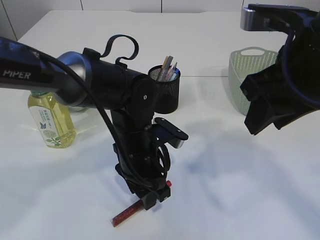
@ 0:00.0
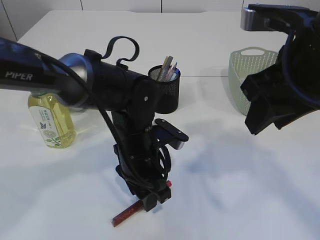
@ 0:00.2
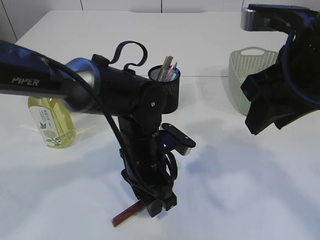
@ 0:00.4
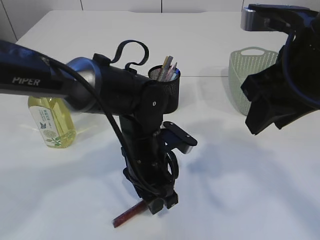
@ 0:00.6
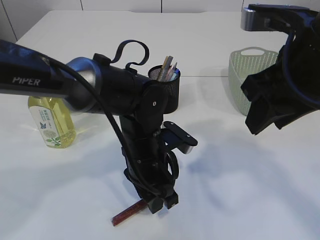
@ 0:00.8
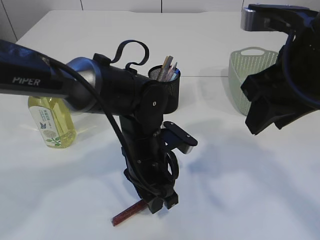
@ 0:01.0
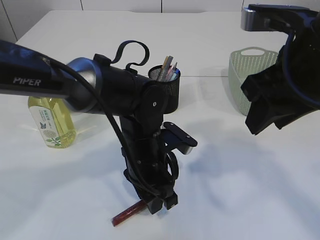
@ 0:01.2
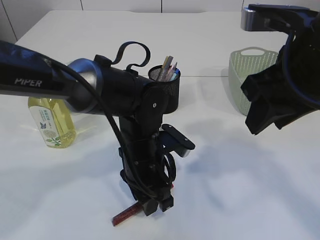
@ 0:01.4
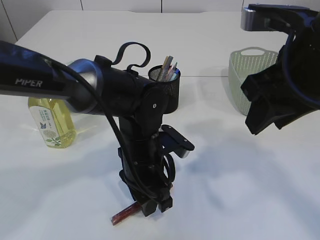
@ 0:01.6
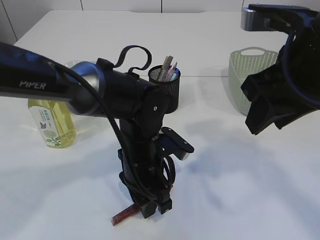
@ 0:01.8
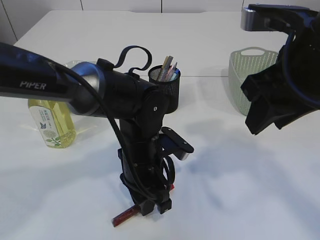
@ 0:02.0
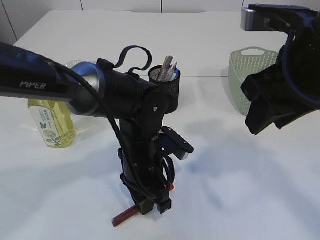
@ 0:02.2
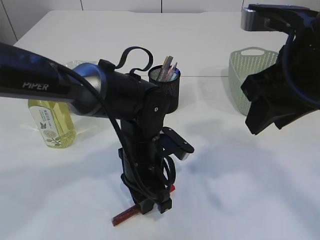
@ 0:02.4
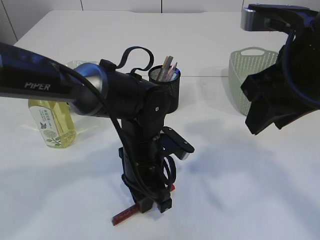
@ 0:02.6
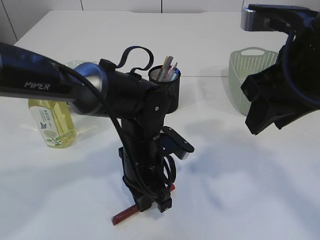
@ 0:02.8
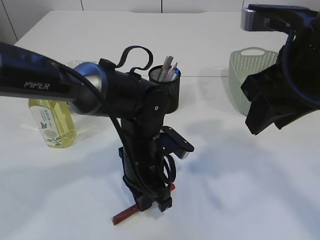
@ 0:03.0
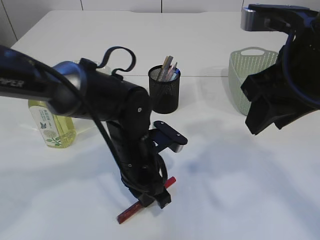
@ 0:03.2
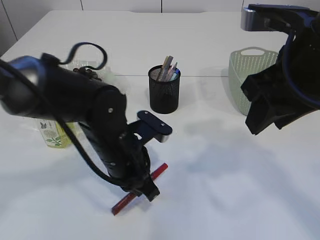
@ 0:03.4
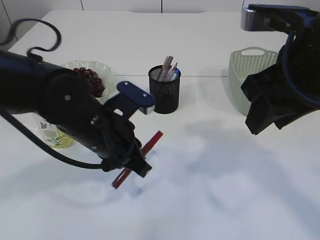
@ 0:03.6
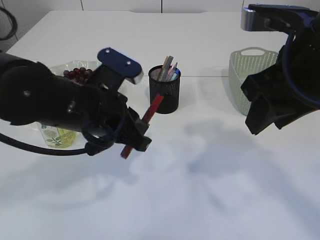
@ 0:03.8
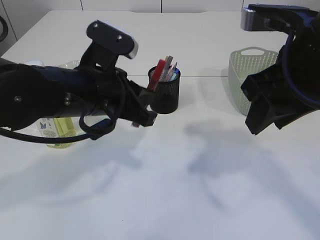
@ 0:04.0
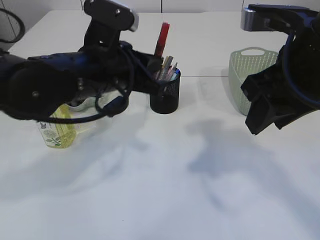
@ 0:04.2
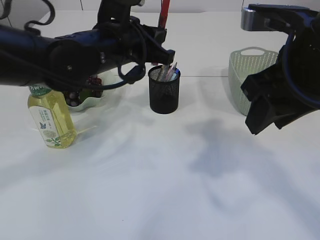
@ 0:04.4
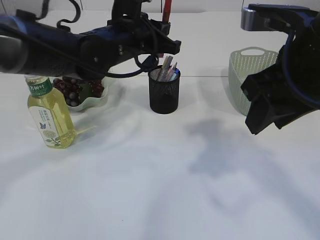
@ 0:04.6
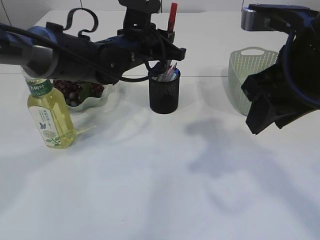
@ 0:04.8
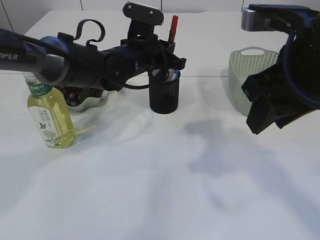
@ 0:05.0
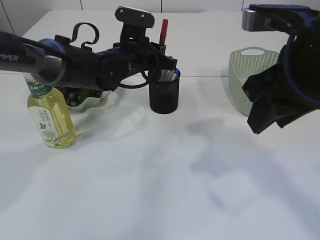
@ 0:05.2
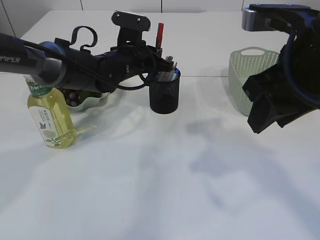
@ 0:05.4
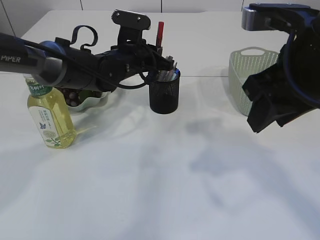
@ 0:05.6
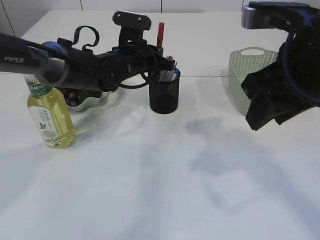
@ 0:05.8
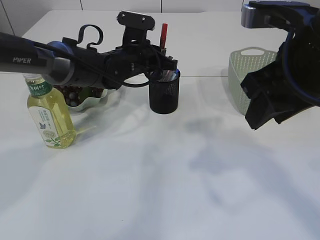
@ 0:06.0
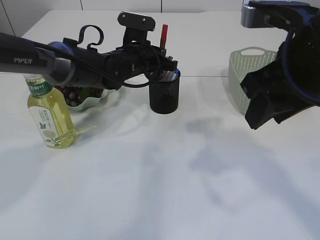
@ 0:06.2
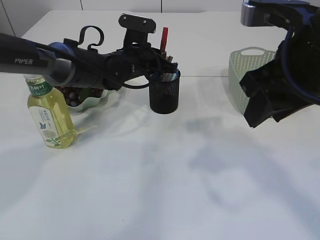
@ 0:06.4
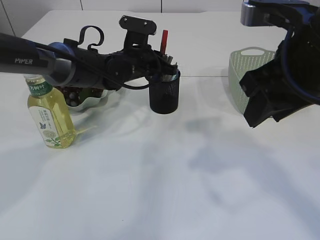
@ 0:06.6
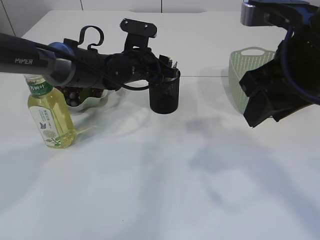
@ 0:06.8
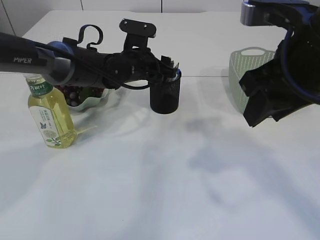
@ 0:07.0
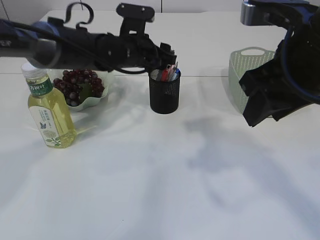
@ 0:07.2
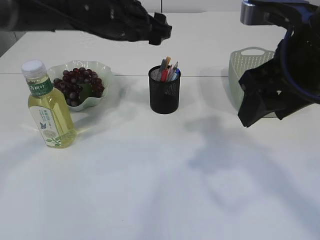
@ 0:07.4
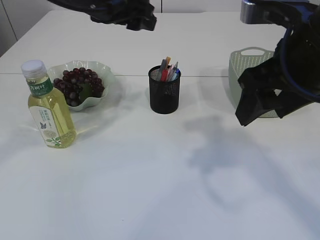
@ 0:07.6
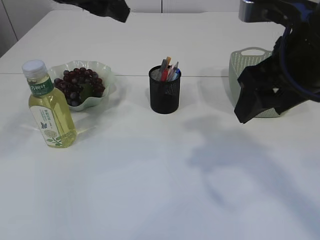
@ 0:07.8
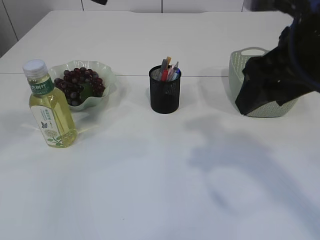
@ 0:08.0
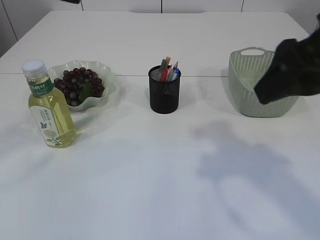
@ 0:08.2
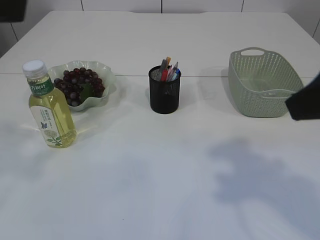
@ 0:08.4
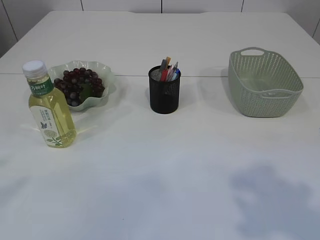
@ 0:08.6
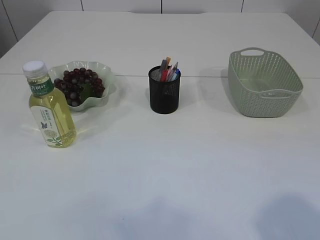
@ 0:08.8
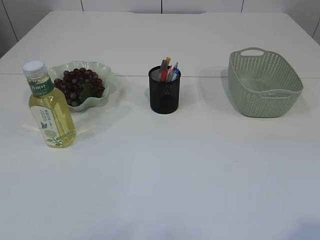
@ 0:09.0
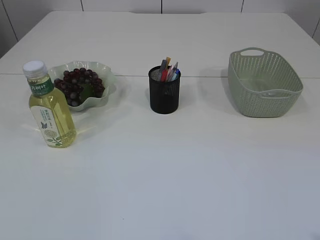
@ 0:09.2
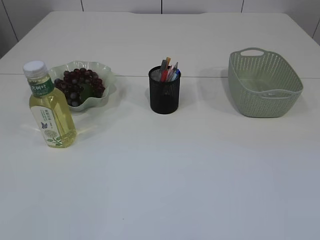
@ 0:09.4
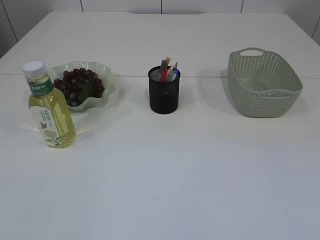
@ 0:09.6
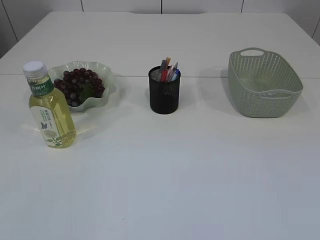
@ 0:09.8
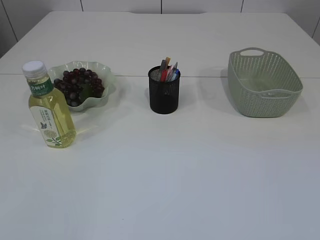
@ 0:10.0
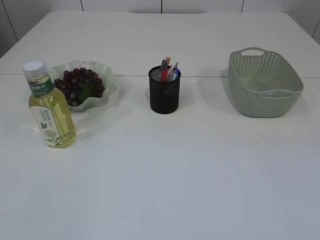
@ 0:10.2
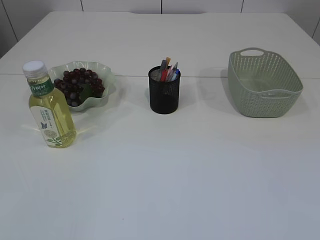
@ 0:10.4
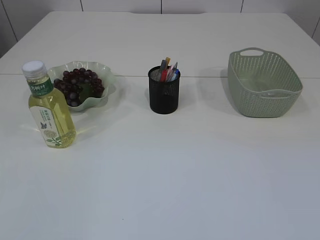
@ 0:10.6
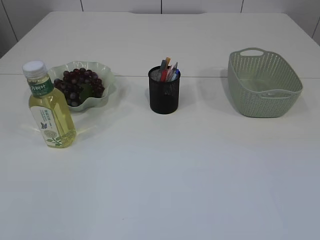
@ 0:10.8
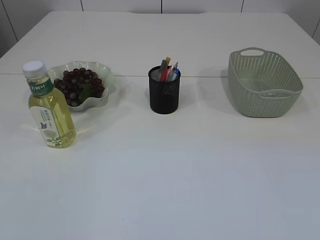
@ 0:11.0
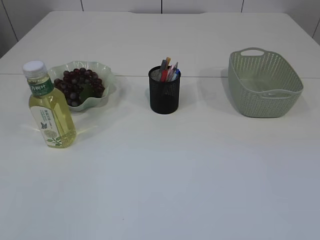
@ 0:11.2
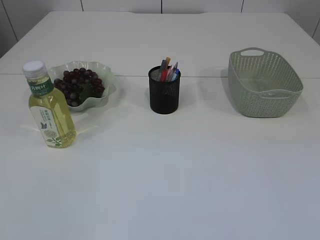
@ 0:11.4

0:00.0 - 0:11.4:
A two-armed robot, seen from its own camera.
Step, 0:00.0 - 0:03.8: pick up the red glue.
Step, 0:04.0 - 0:07.6: place the red glue into the pen holder.
0:00.0 - 0:01.4: There are only small adjustments of the grippers.
0:01.4 - 0:02.8: The left gripper closes up.
0:02.8 - 0:04.2: The left gripper is displaced upward and to the left by some 15 cm.
0:04.2 - 0:05.6: The left gripper goes about 15 cm forward and downward.
0:05.6 - 0:07.2: The left gripper opens up.
0:07.2 - 0:08.6: The left gripper travels backward, to the left and upward by approximately 40 cm; the right gripper moves backward and to the right, about 15 cm, and opens.
